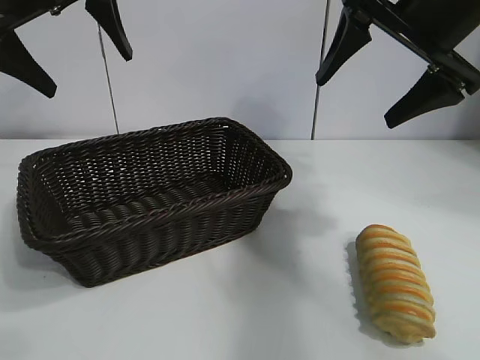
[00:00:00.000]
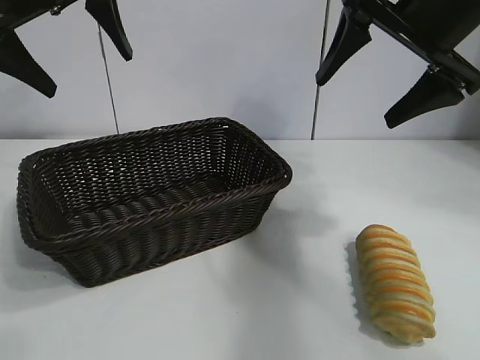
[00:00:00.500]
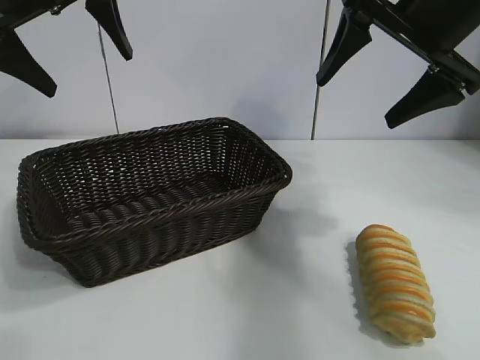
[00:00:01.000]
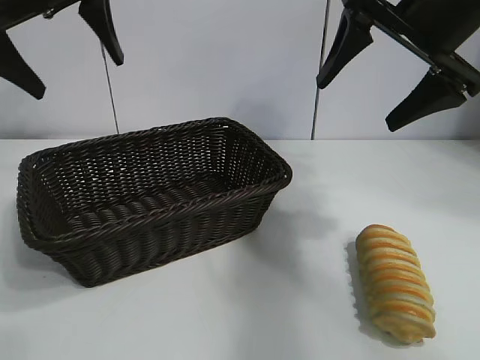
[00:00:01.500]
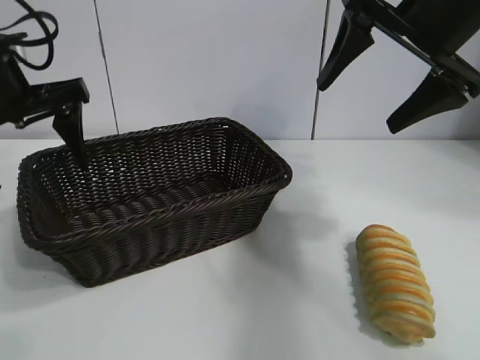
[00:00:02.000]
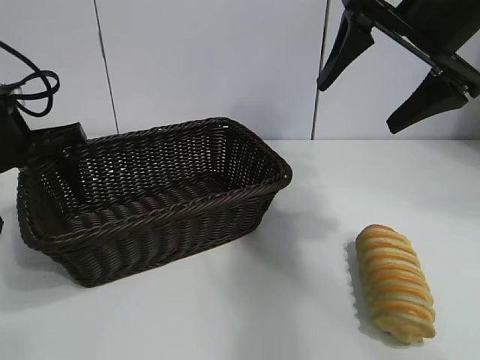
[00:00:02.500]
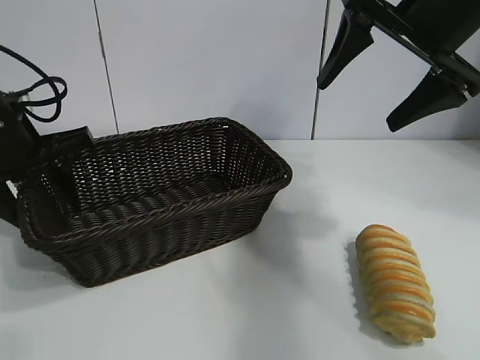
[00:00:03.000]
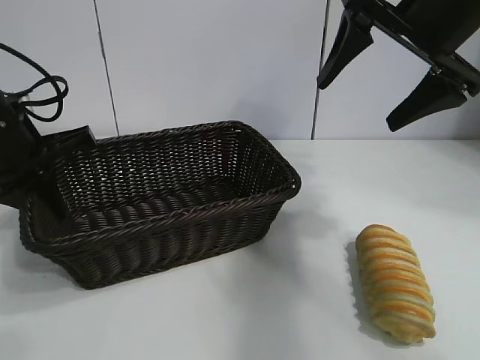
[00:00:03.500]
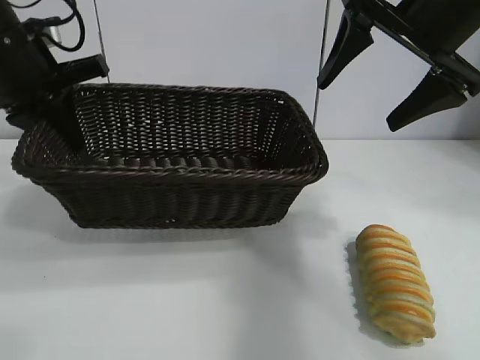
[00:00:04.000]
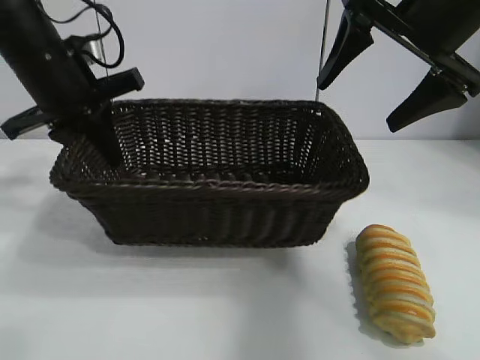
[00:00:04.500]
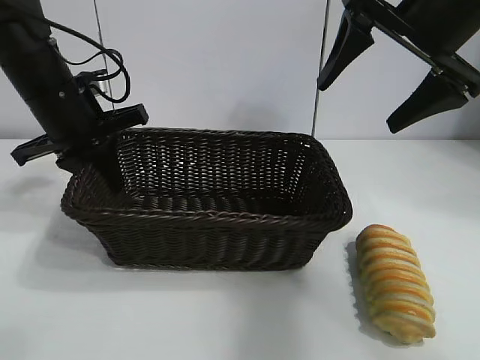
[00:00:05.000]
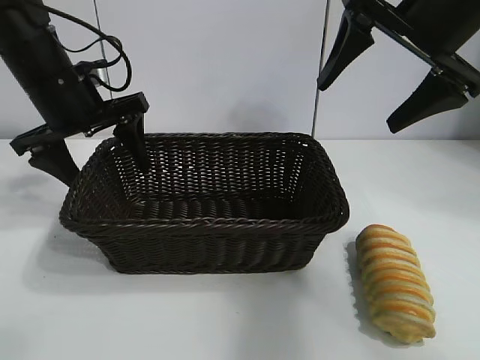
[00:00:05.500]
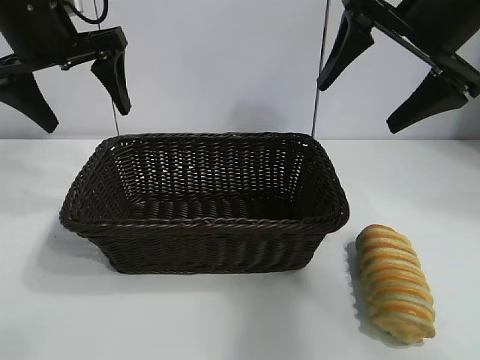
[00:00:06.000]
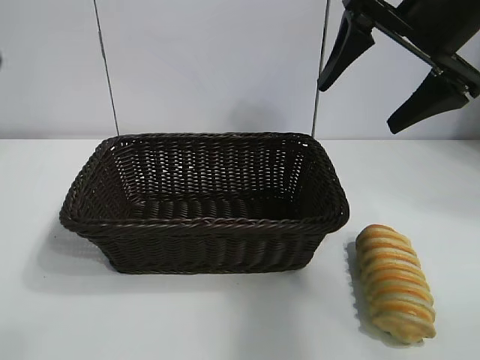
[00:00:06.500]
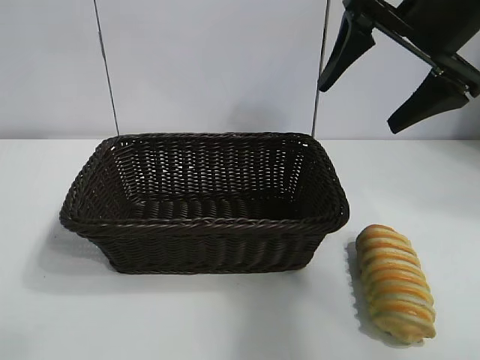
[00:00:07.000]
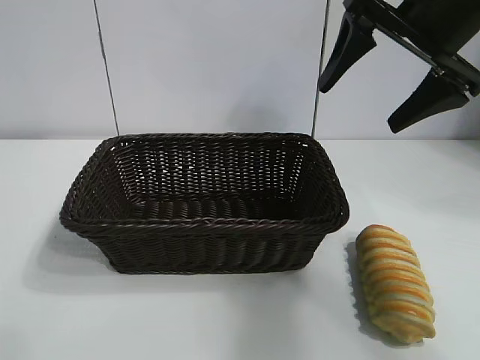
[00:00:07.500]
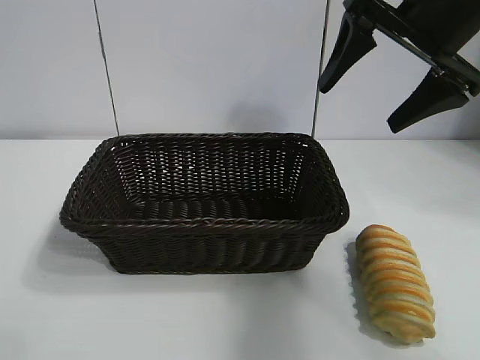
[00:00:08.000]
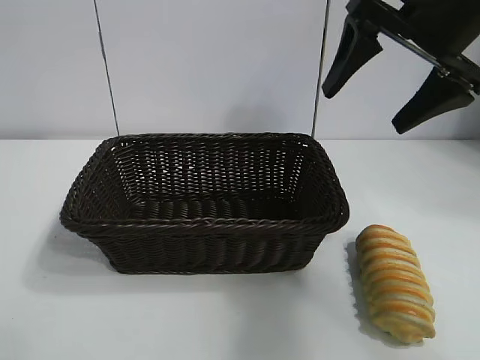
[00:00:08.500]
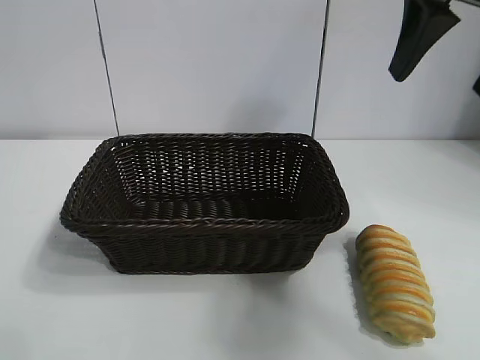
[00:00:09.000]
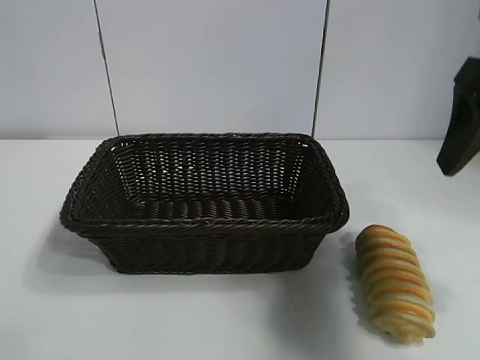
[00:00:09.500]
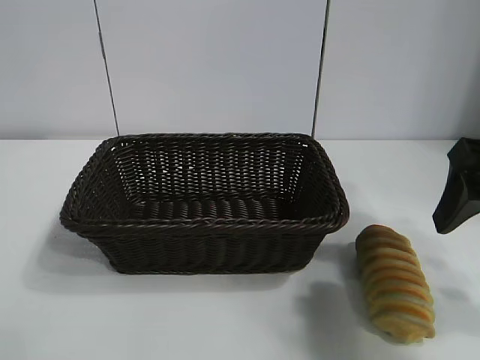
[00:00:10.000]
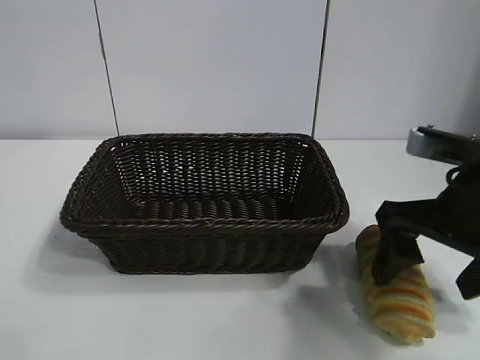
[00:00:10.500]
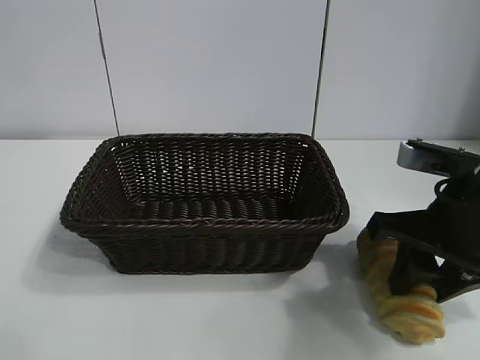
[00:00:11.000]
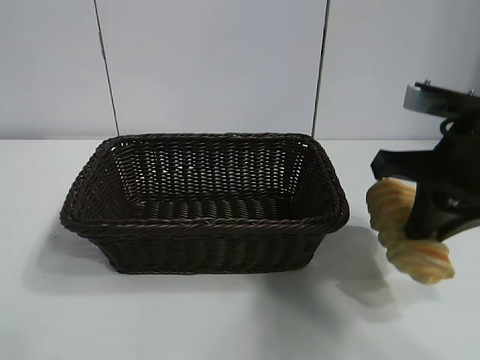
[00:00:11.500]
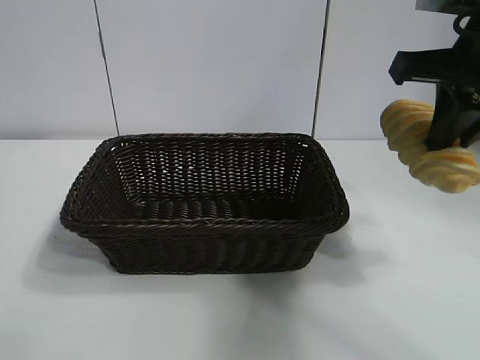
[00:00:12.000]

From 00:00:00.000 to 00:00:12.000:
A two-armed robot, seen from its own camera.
Task of the whole recording: pick up the long bread and put it into the basket.
Step, from 00:00:01.500 to 00:00:03.000: Grasp the basket with the left gripper.
Step, from 00:00:03.500 to 00:00:05.000: Place the basket in the center of the table with the left gripper.
Step, from 00:00:05.500 to 00:00:11.000: Grasp the long bread with right gripper.

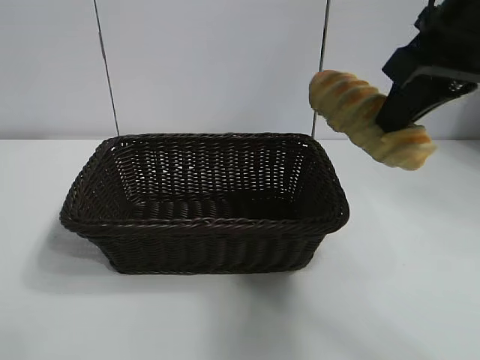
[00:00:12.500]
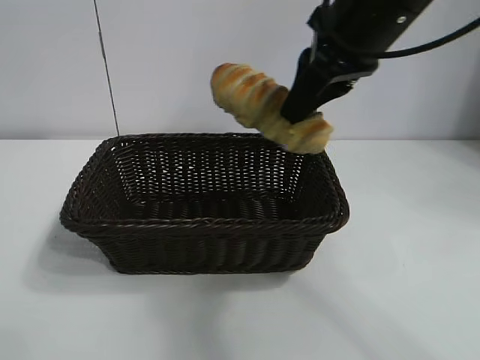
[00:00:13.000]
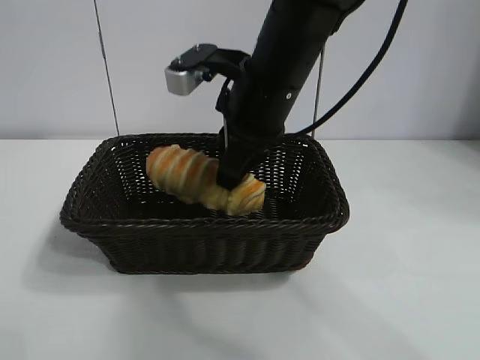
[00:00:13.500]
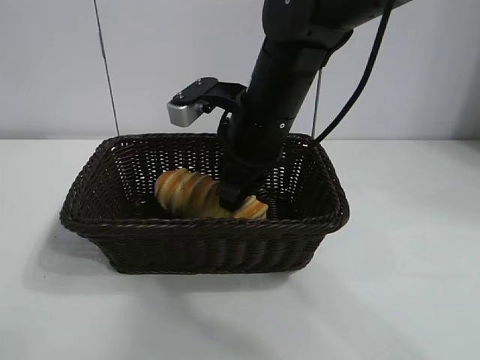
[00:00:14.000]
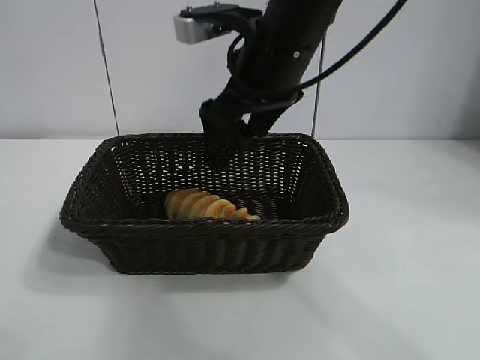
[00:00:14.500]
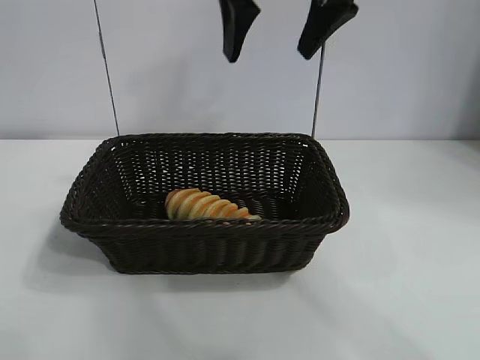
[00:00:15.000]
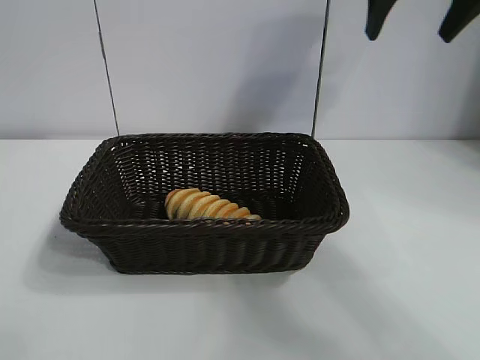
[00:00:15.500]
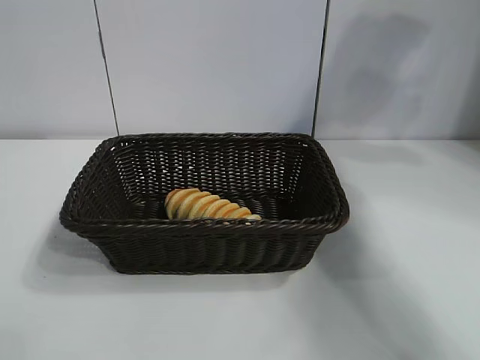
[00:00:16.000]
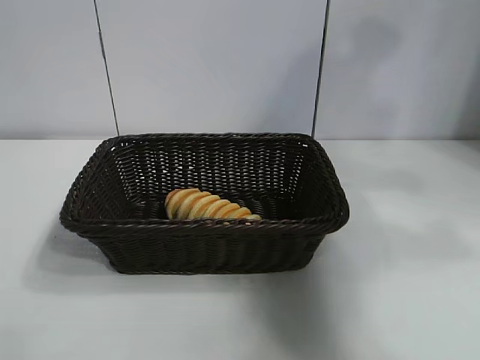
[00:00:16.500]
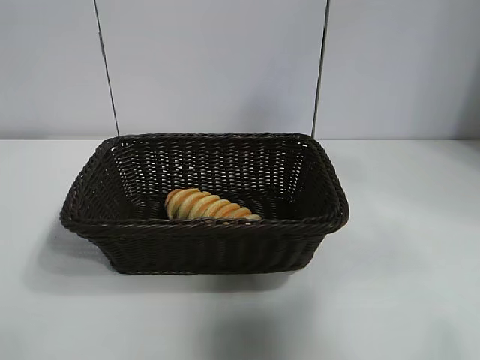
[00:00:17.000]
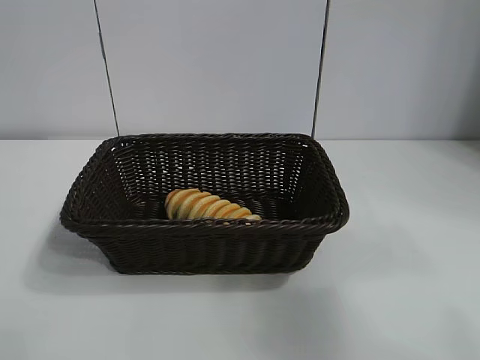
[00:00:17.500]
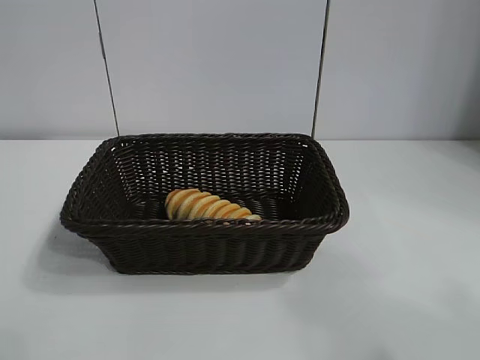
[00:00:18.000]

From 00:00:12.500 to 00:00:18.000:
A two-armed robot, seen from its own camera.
Task of the whole recording: pick up the long bread and put it into the basket.
Step, from 00:00:12.500 to 00:00:14.000: Place the long bread in the basket with right gripper.
